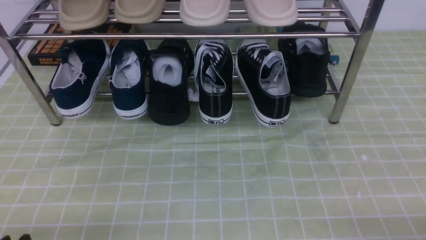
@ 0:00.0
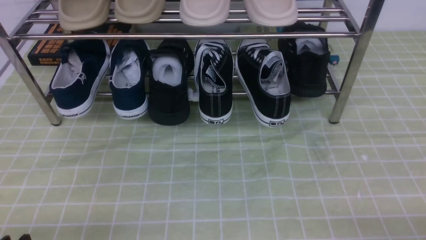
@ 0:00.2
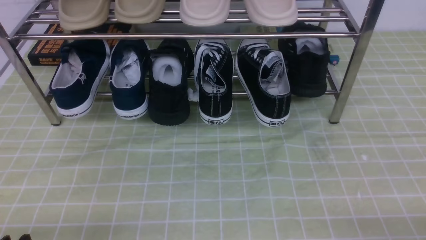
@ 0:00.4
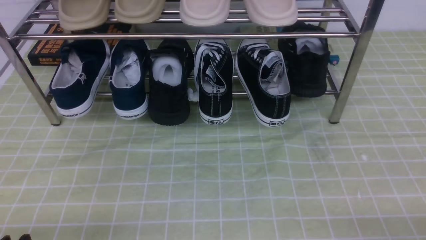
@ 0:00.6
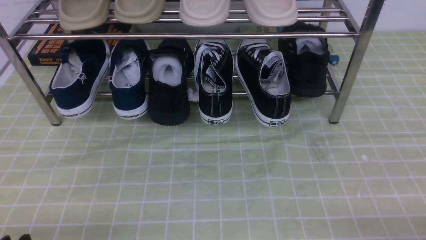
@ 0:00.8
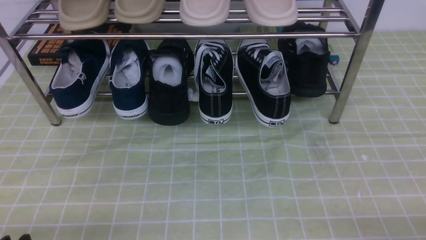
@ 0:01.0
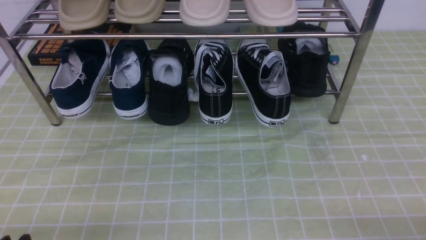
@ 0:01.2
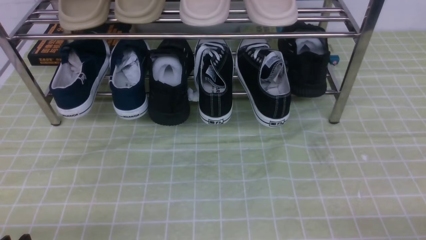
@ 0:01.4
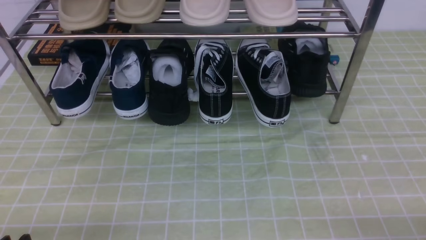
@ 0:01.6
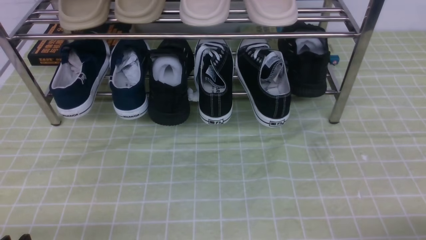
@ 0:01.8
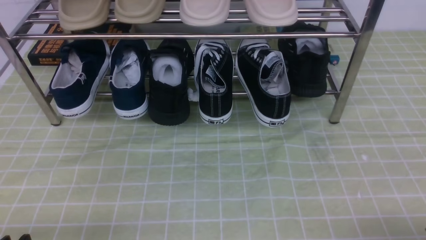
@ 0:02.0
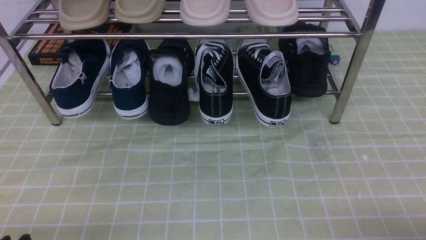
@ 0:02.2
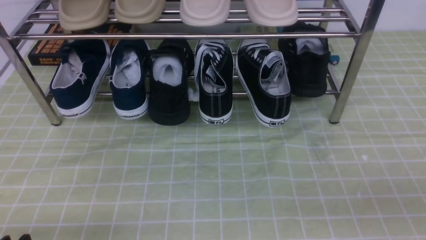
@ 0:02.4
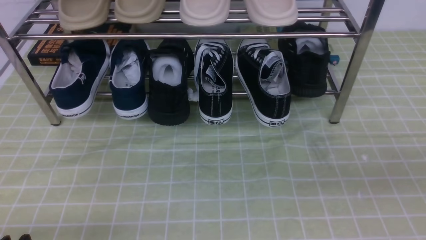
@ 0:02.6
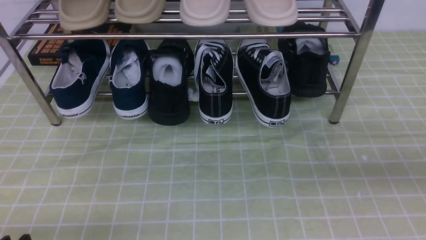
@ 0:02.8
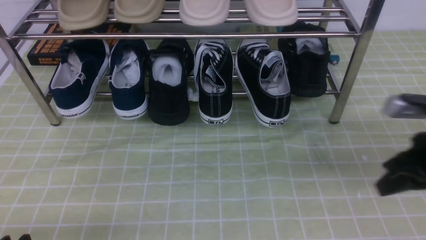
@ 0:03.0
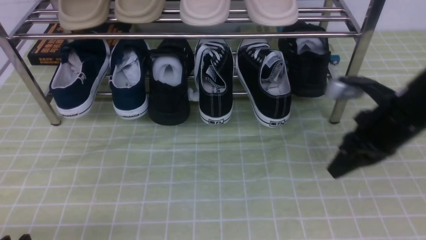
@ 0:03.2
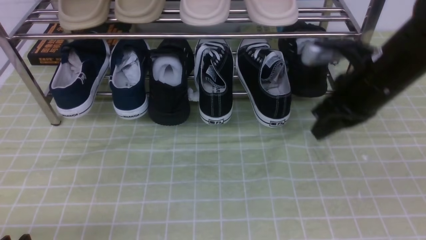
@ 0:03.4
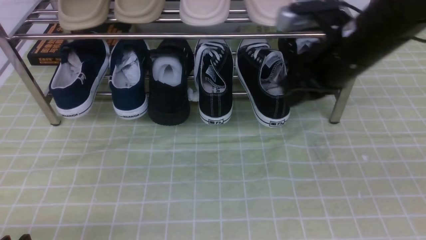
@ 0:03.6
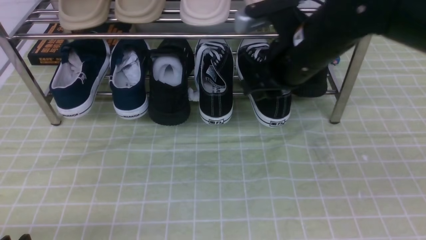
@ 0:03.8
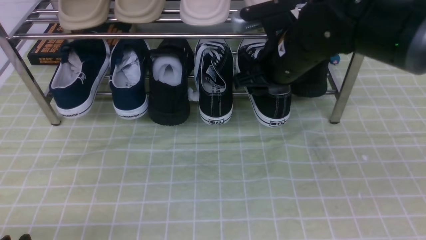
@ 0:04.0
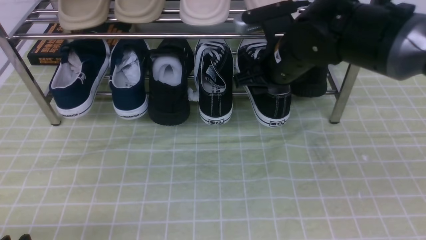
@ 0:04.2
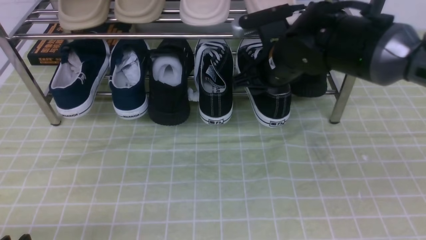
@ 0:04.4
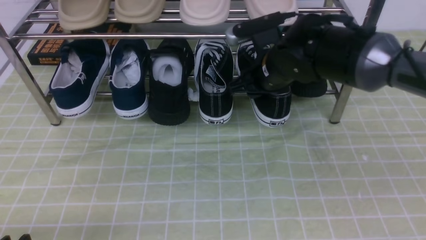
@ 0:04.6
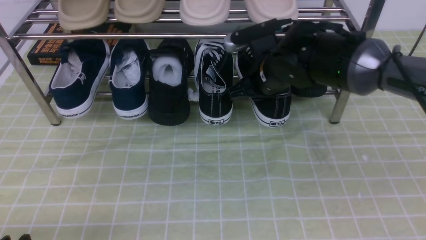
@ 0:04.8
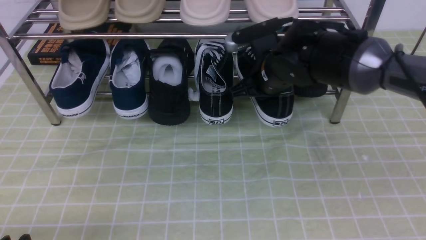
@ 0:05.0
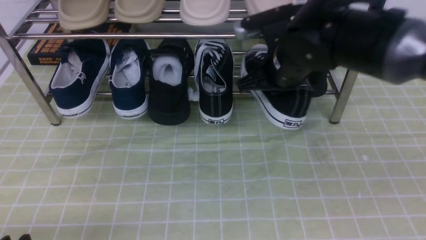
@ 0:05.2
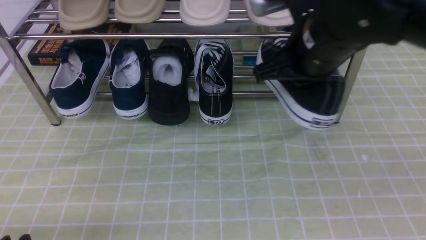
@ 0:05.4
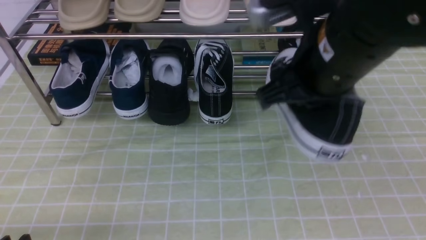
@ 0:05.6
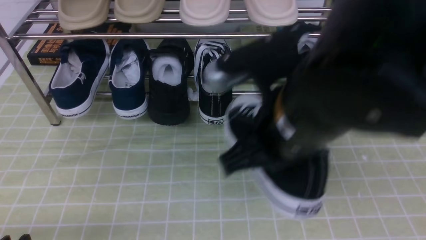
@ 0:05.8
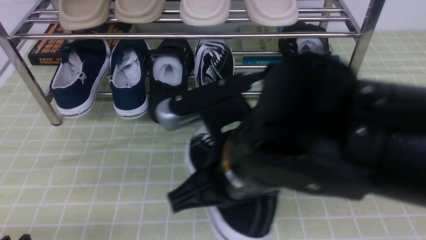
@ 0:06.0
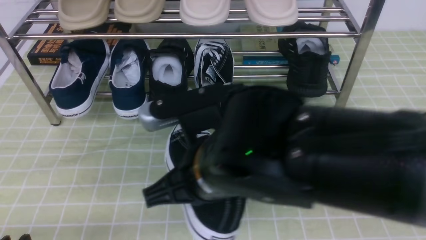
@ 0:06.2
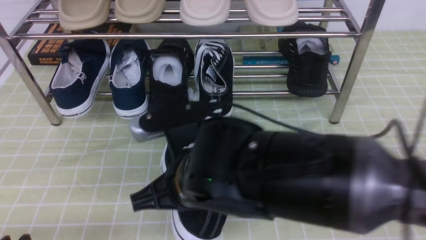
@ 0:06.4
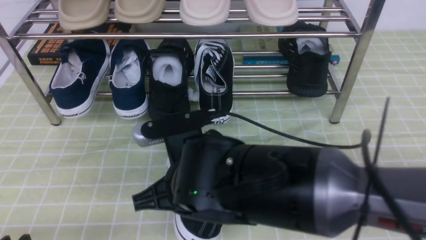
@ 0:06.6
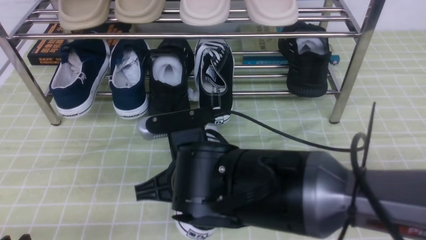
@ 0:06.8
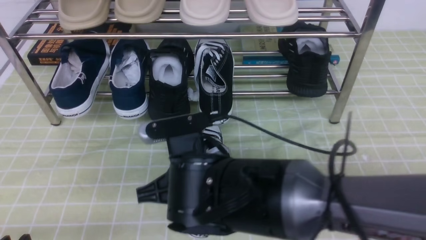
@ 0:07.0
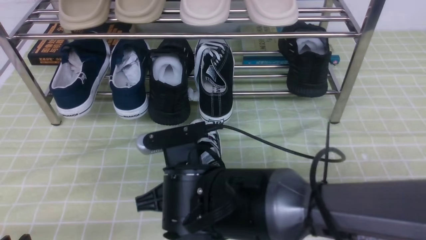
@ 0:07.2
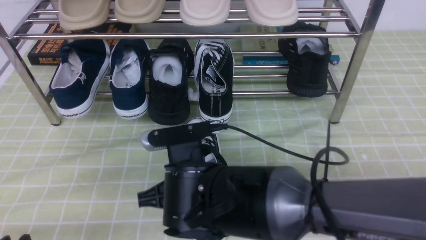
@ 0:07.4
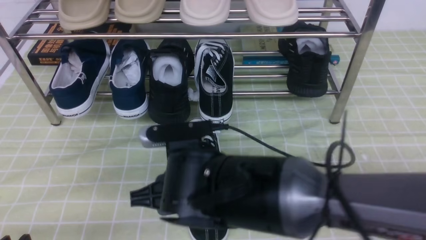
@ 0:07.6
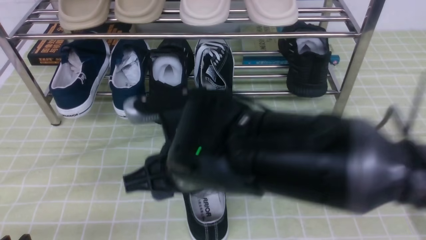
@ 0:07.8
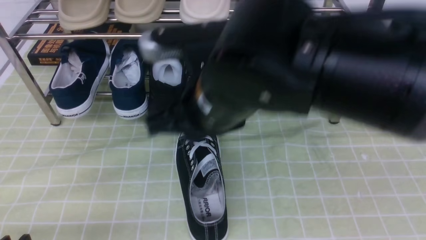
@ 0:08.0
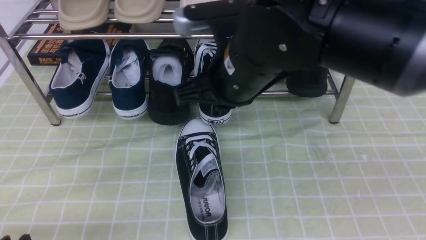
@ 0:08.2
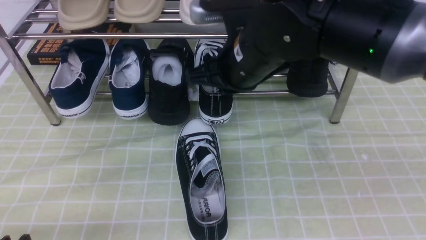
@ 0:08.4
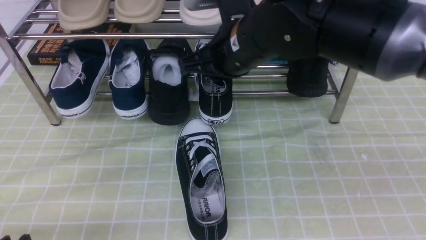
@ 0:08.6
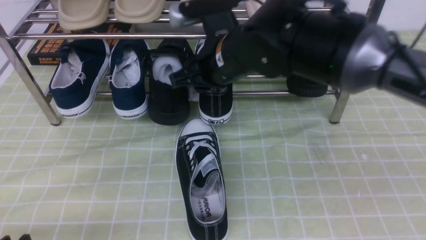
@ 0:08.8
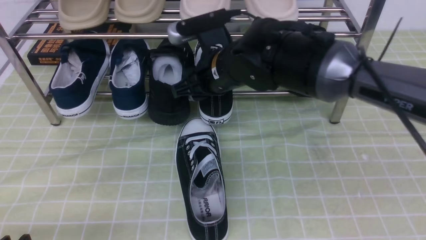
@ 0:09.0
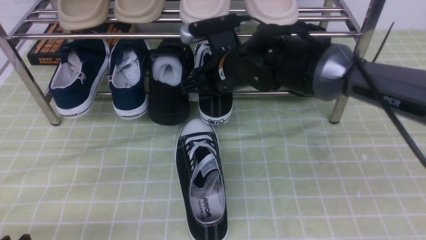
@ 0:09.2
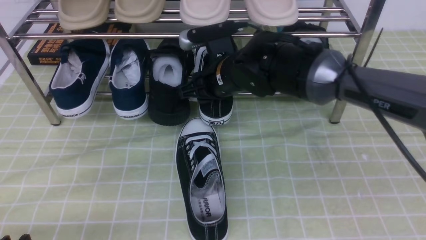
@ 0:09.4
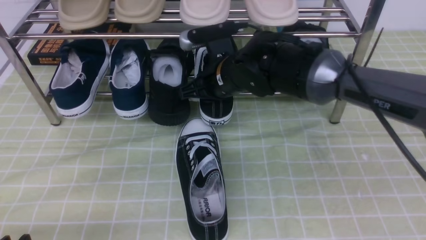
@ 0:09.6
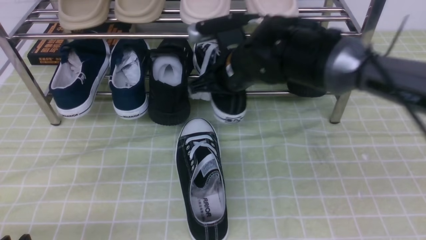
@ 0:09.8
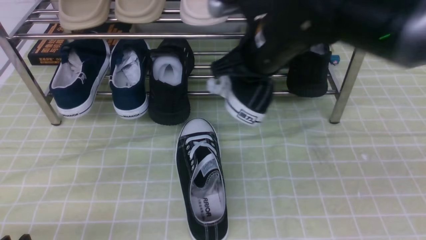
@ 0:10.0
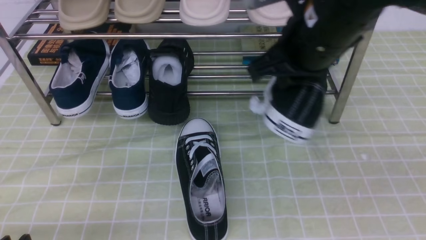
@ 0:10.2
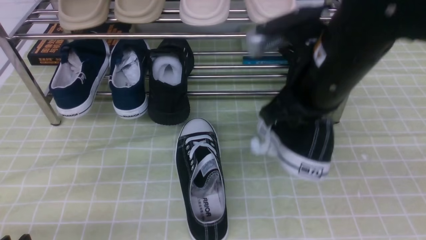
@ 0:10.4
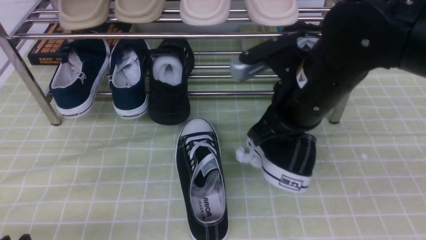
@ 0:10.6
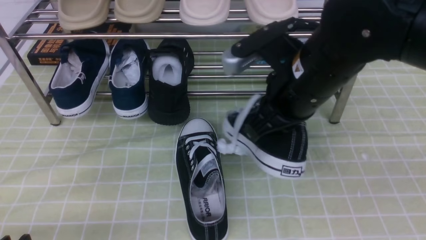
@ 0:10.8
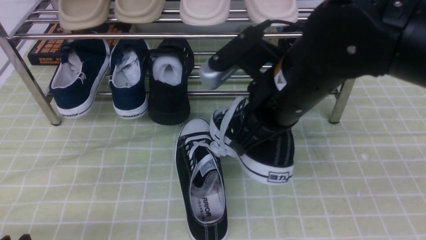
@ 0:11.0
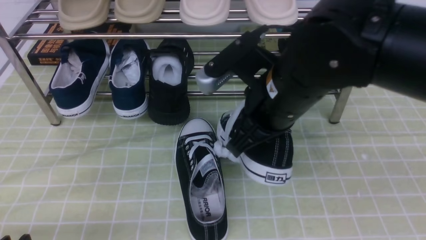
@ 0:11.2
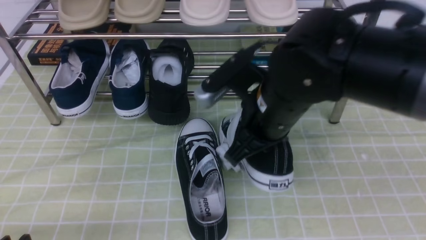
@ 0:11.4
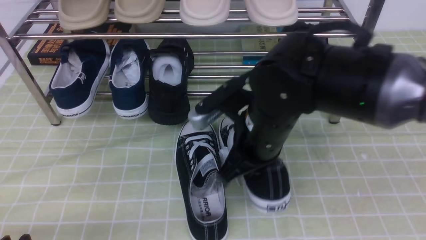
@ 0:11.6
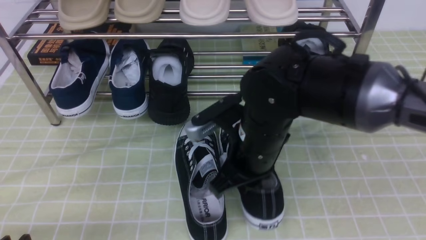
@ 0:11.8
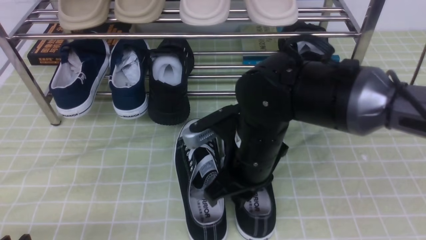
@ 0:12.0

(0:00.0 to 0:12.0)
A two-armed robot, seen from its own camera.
Step, 0:00.0 - 0:04.8: use the right arm to clamp a shoe on the right side of the shoe rack.
Step, 0:05.2 - 0:07.8: use the right arm to take out the clamped shoe from the shoe rack and put it down.
Step, 0:08.0 - 0:09.6: use the right arm to clamp a shoe in the middle of the shoe rack.
0:01.6 - 0:03.0: The right gripper shifts roughly 20 cm forward and upward, and closes up.
0:03.0 - 0:04.4: The right gripper goes some 20 cm to the left and forward, and opens its fingers.
0:04.4 - 0:06.0: The right gripper heads backward, covering some 20 cm, and closes.
0:06.0 - 0:07.6: The right gripper goes approximately 10 cm downward and to the left, and opens its fingers.
0:07.6 - 0:09.0: The right gripper is displaced forward by roughly 15 cm, and closes and opens again.
0:09.0 - 0:10.4: The right gripper is displaced backward, to the right and upward by some 15 cm, and closes its fingers.
0:10.4 - 0:12.0: The right gripper heads downward and to the left, covering about 10 cm, and opens up.

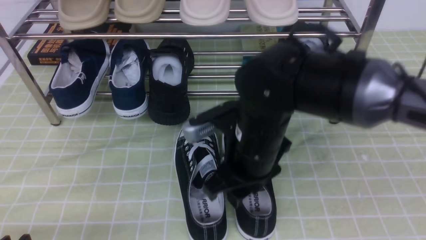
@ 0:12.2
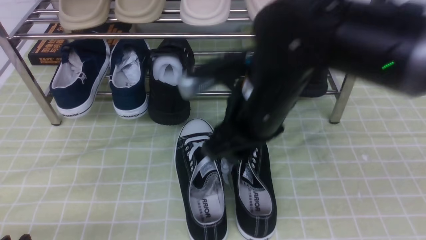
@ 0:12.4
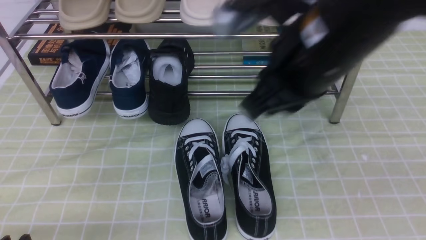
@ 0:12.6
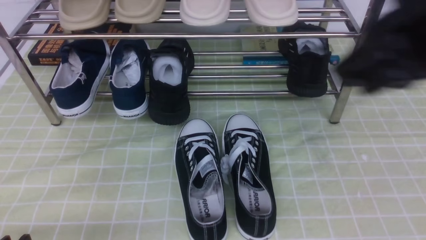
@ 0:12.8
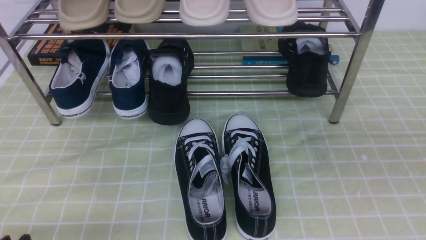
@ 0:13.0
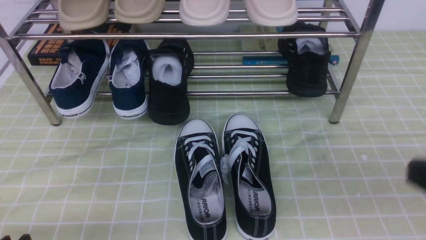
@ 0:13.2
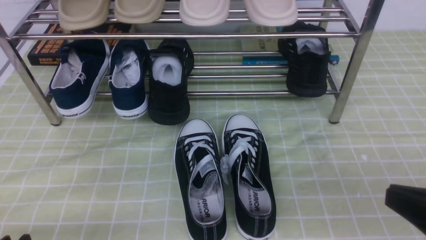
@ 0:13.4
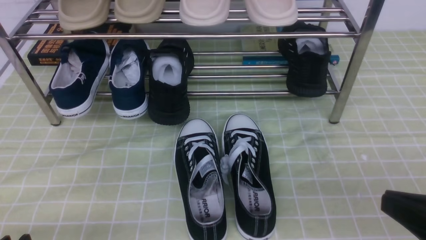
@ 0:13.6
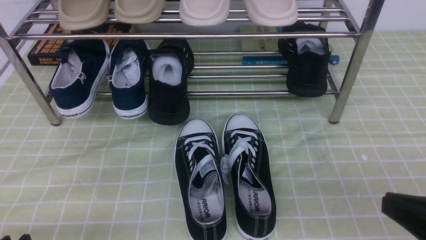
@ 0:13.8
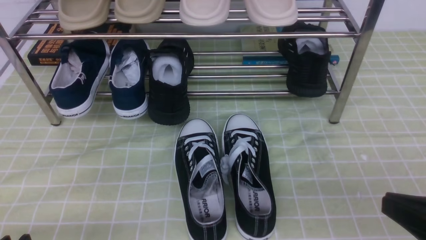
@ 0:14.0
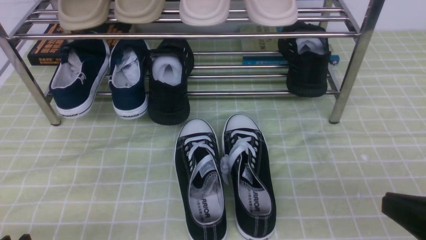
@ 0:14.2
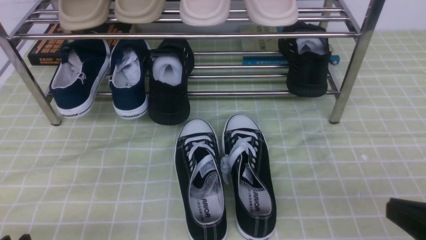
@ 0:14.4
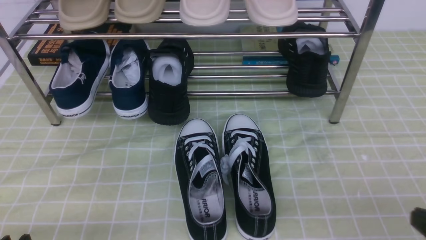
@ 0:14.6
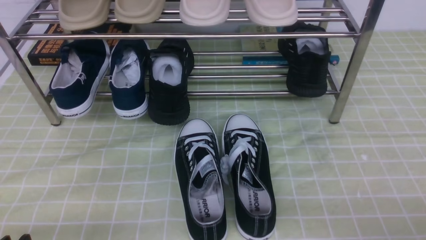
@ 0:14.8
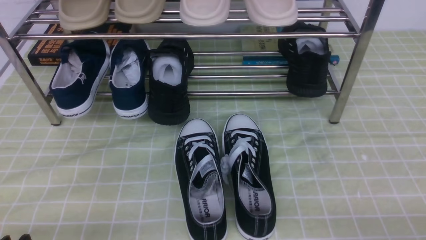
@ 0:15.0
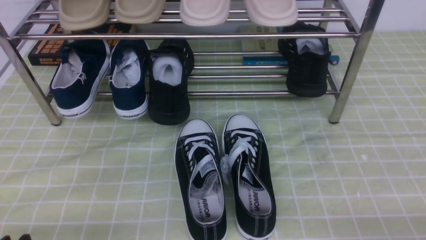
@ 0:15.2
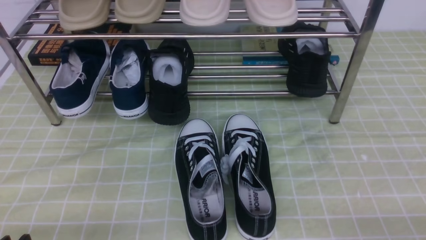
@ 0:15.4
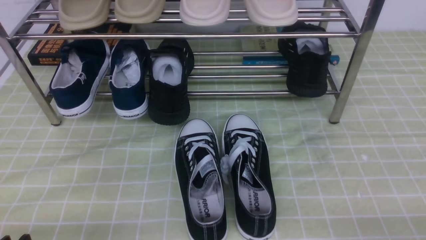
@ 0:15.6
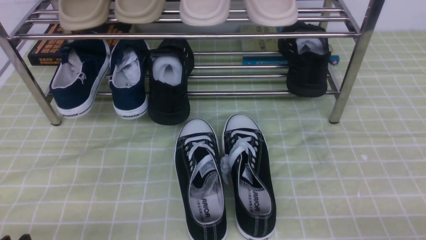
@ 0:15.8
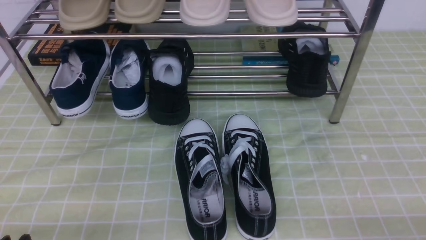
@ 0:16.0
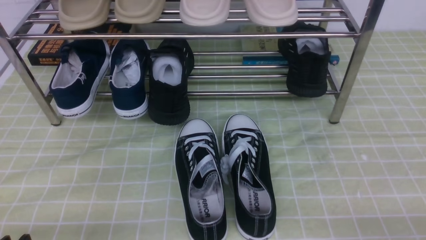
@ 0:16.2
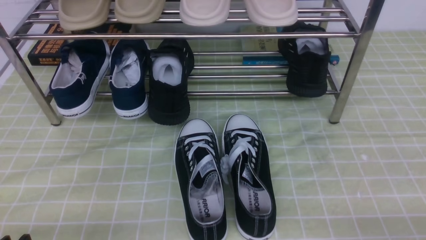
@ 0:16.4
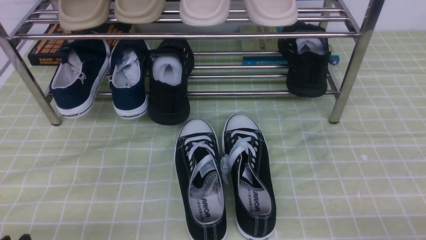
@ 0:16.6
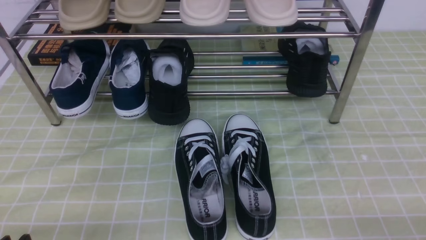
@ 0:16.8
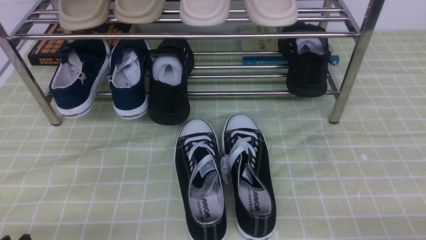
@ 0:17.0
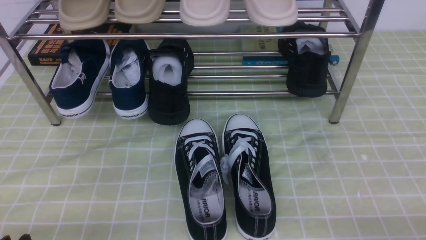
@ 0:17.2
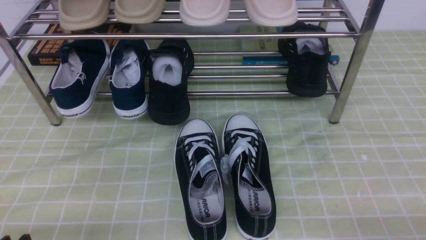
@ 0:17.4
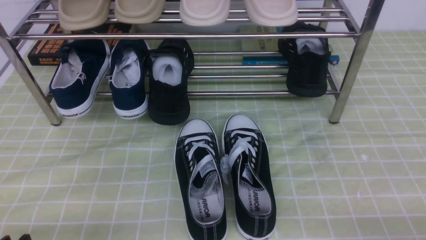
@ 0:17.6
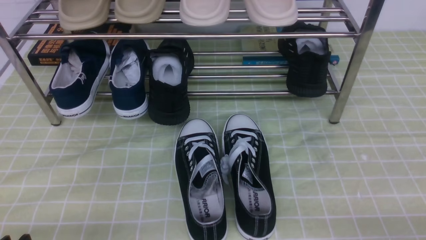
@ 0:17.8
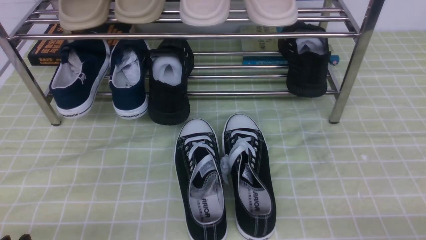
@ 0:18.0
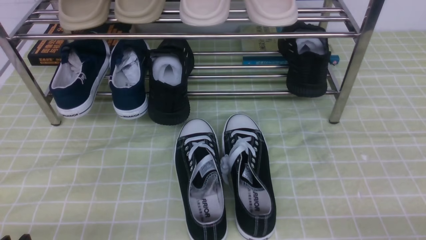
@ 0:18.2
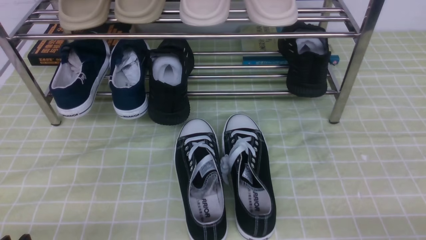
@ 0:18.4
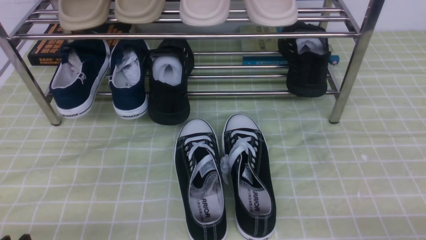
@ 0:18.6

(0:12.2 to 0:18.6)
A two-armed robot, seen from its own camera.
0:12.2 - 0:13.8: The right gripper travels to the right and backward by roughly 30 cm, and closes.
0:13.8 - 0:15.4: The right gripper heads downward and to the right, covering approximately 10 cm.
0:15.4 - 0:18.6: Both grippers stay about where they are.
